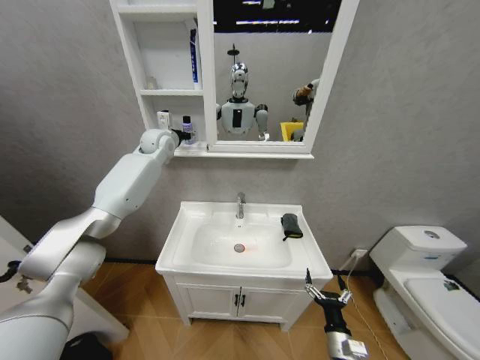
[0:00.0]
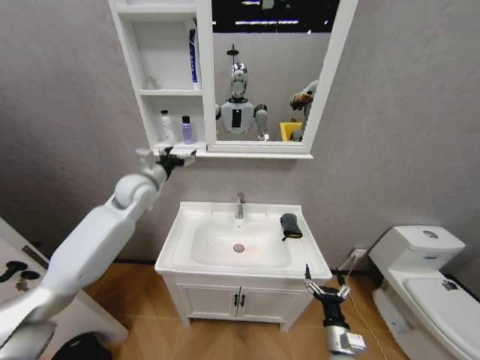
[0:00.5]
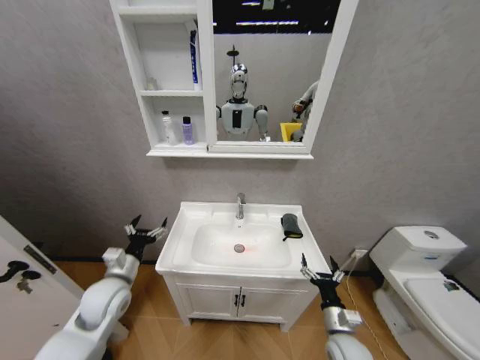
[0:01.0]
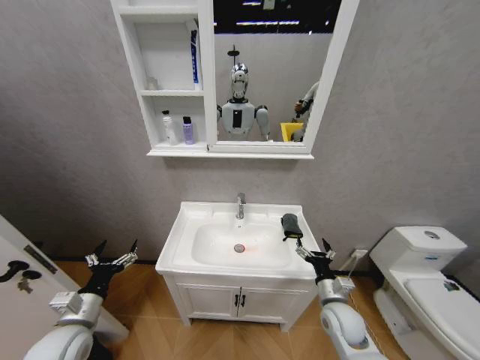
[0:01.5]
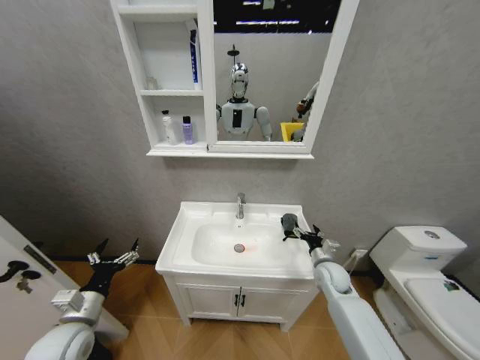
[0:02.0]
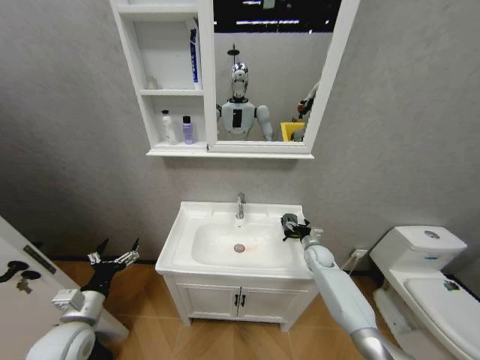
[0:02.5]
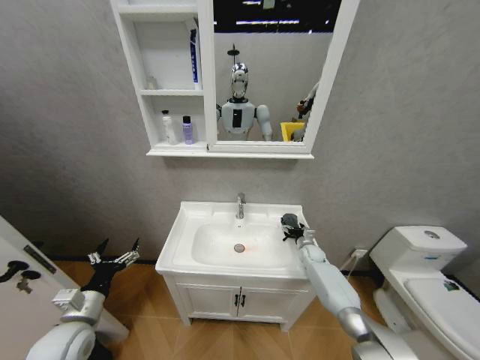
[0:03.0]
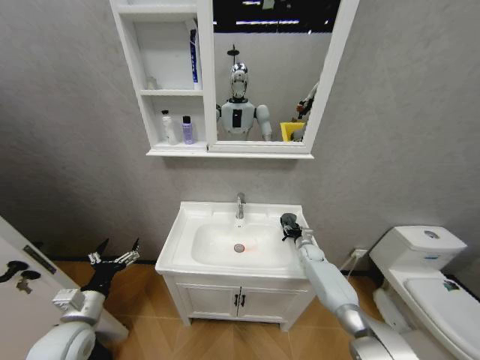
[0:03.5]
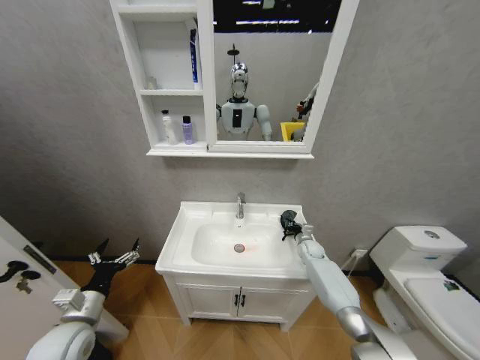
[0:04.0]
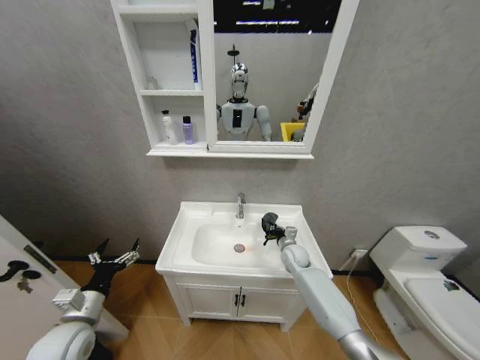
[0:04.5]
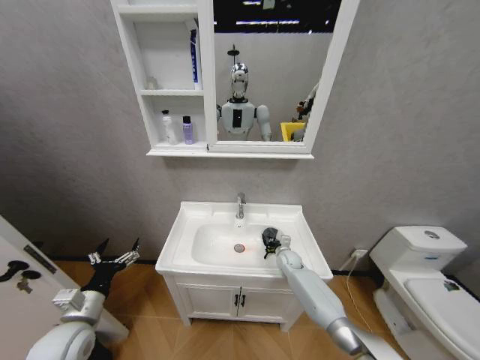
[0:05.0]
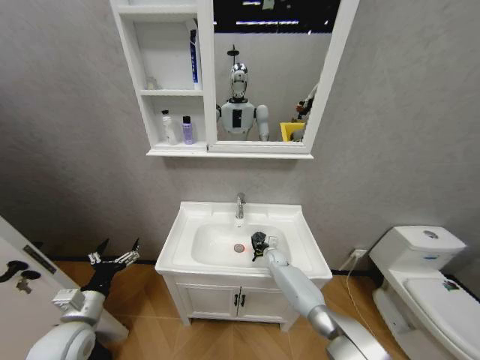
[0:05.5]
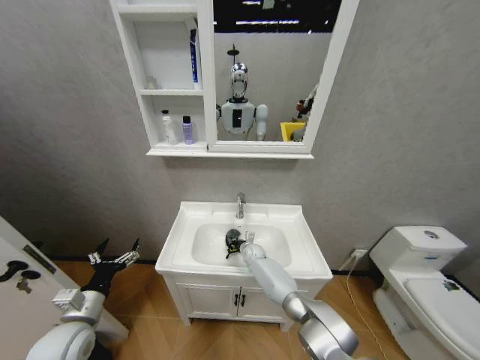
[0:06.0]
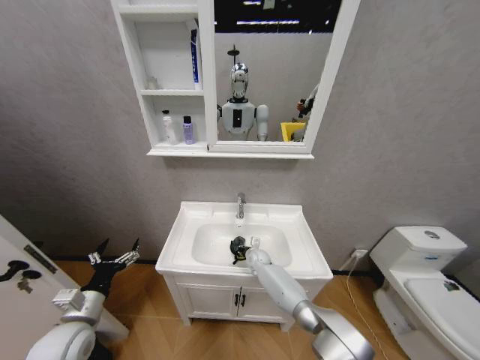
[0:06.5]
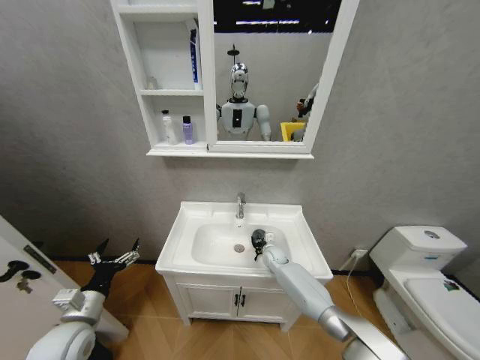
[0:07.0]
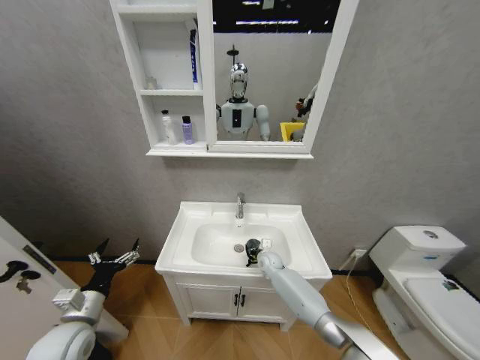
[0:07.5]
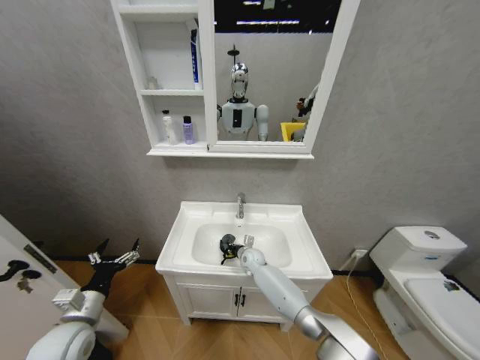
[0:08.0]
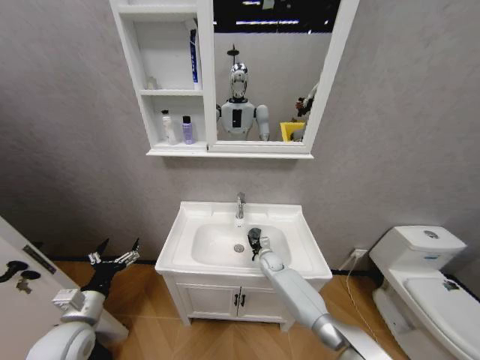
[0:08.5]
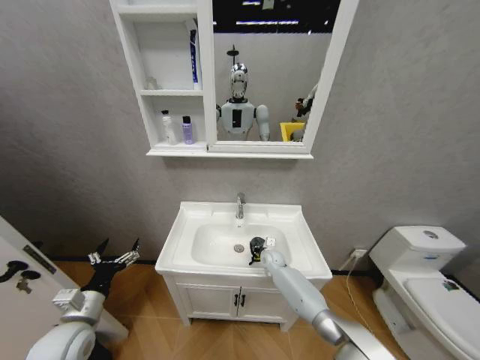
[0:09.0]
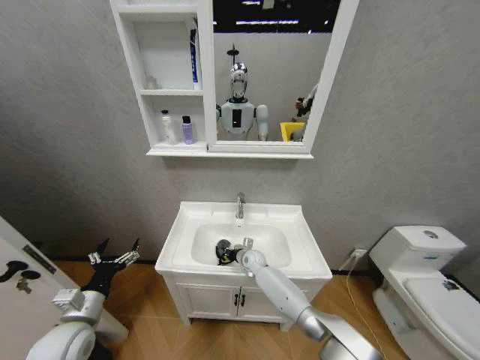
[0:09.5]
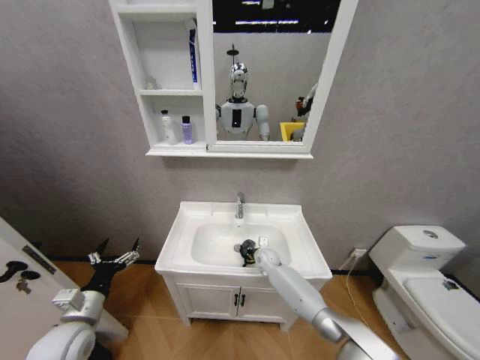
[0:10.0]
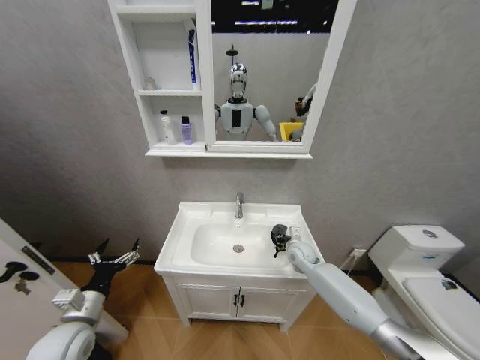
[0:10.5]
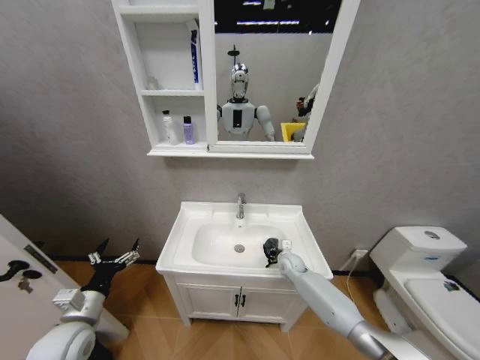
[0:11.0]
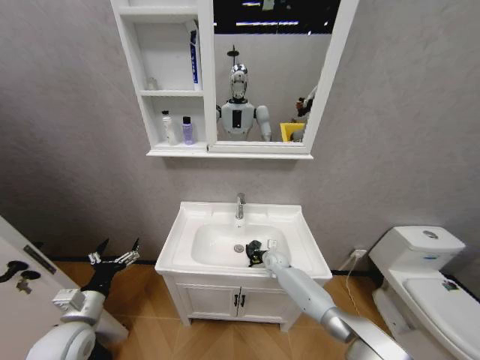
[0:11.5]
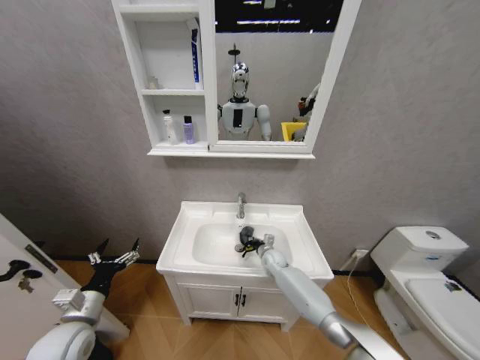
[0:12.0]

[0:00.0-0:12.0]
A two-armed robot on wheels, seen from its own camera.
Task of the whole recording: Move facial cleanser and shampoo from washbasin to cabinet, then wipe washbasin with towel.
0:00.0 to 0:02.0: The left gripper shifts approximately 50 cm backward and downward, and opens up; the right gripper goes about 25 cm forward and upward.
0:02.0 to 0:04.0: The right gripper goes some 15 cm forward, and closes its fingers.
0:04.0 to 0:06.0: The right gripper heads to the left, covering some 25 cm.
0:06.0 to 0:08.0: The right gripper goes to the right and returns, about 10 cm each way.
0:08.0 to 0:10.0: The right gripper moves left and right over roughly 10 cm, changing direction 2 times.
0:10.0 to 0:12.0: The right gripper goes upward and returns, roughly 10 cm each way.

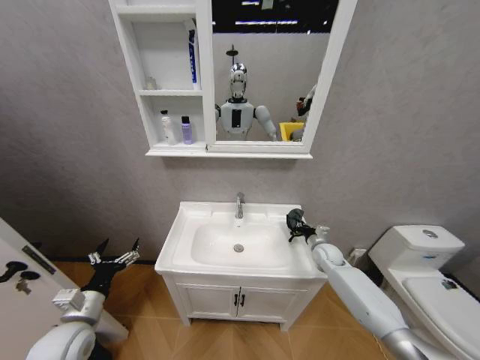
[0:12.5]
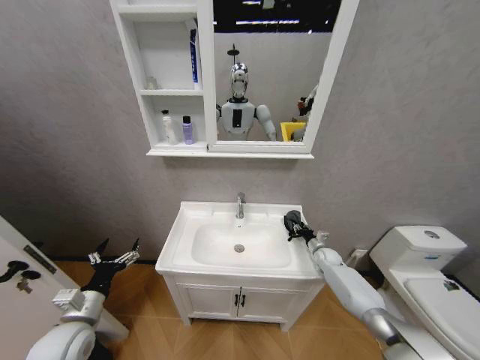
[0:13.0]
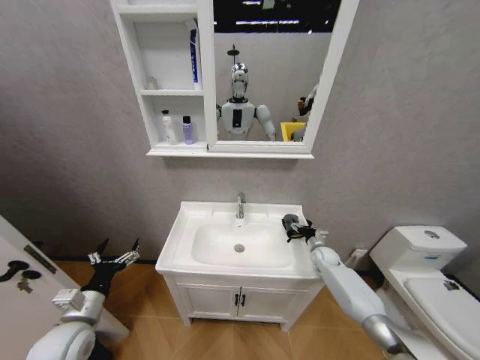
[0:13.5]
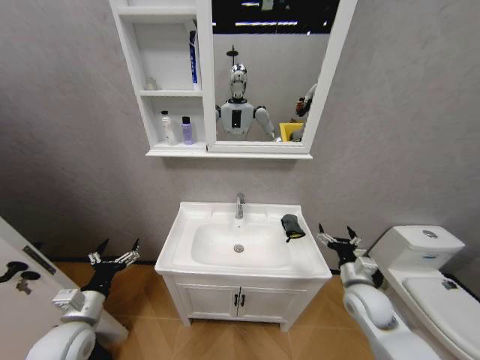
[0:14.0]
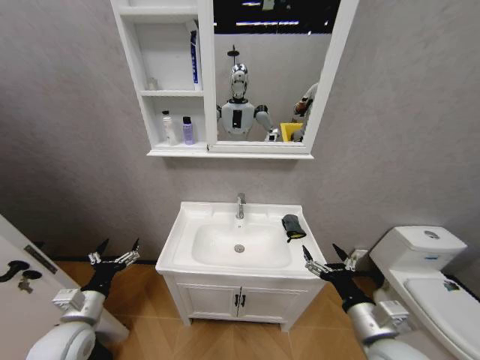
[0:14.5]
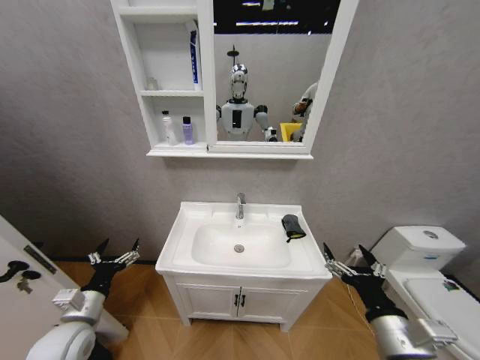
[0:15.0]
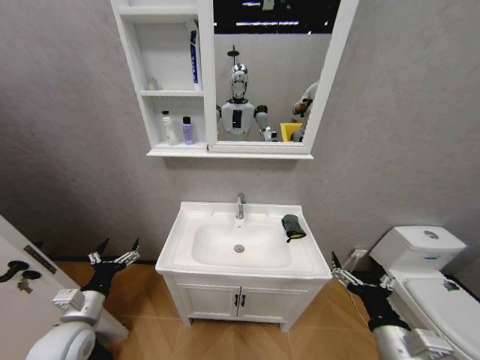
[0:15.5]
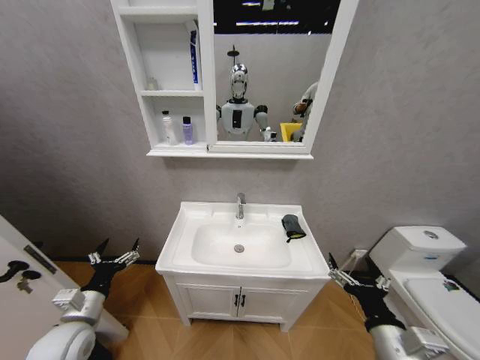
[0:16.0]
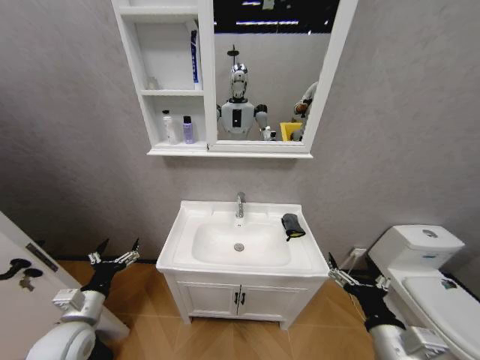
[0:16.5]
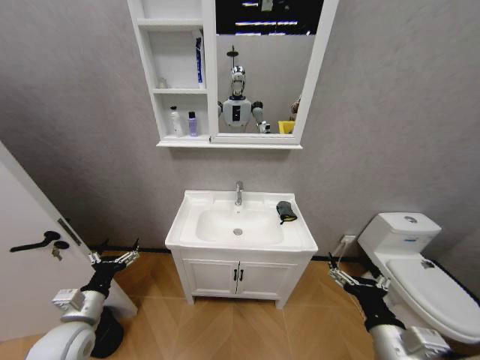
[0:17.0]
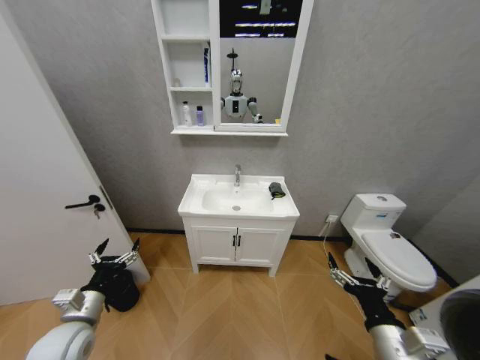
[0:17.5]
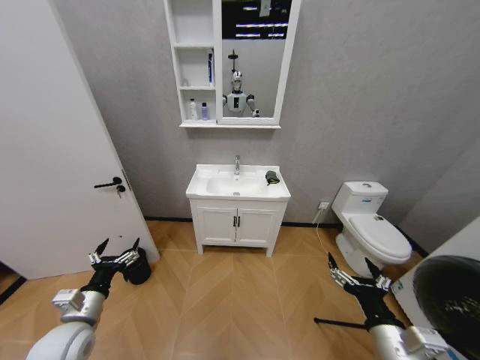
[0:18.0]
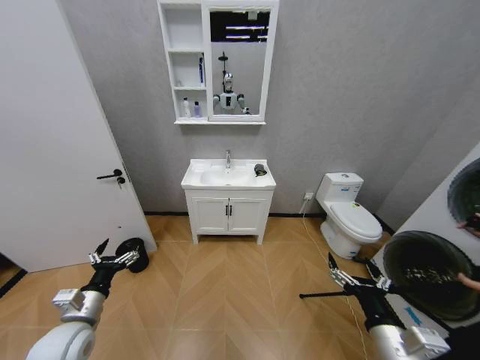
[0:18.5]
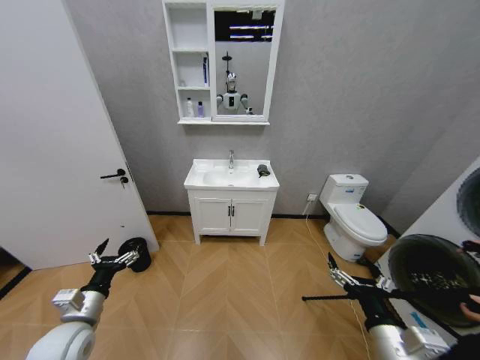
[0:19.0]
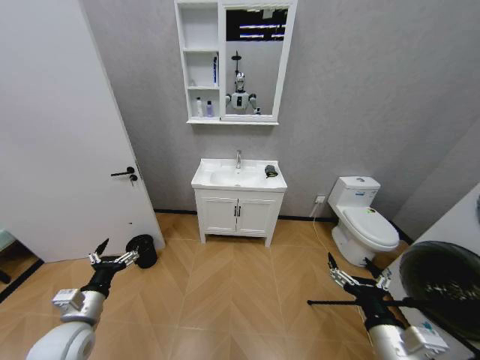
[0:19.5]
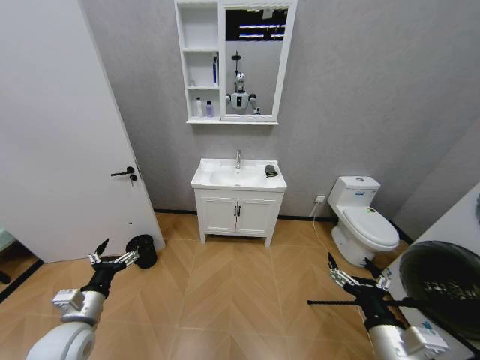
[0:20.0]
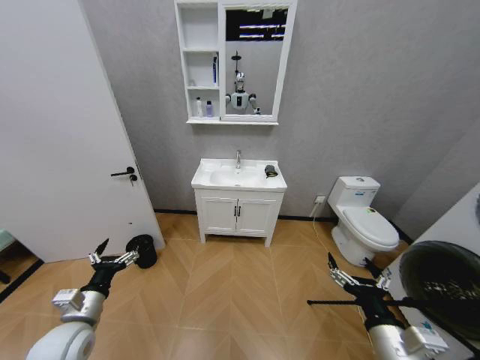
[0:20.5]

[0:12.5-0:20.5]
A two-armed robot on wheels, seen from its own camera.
Task of the whole recording: Move facial cleanser and shampoo from washbasin to cabinet, then wipe washbasin with towel.
0:12.5 to 0:14.5: The right gripper travels backward by about 30 cm, and opens.
0:14.5 to 0:16.5: The grippers move only a little.
0:18.5 to 0:20.5: Both grippers stay about where they are.
